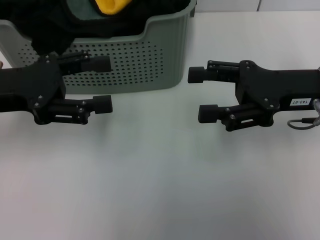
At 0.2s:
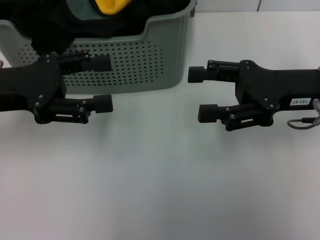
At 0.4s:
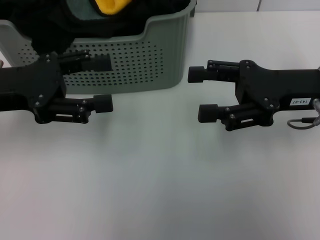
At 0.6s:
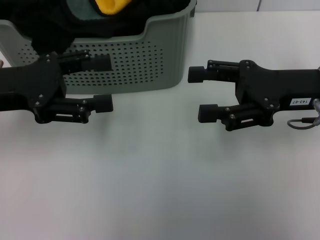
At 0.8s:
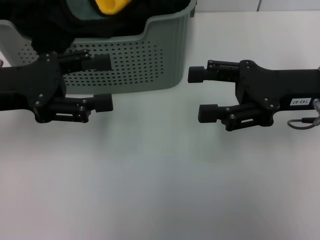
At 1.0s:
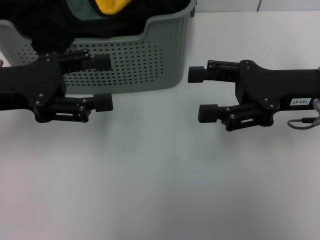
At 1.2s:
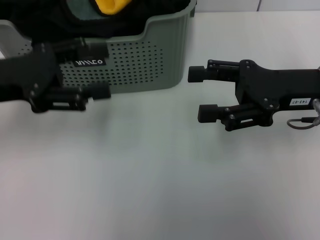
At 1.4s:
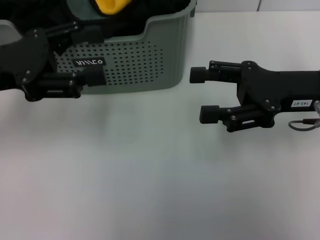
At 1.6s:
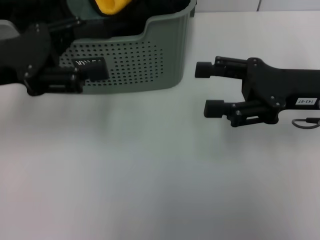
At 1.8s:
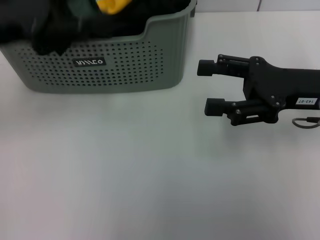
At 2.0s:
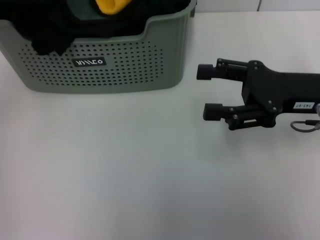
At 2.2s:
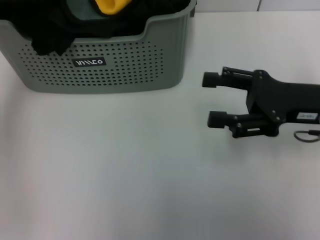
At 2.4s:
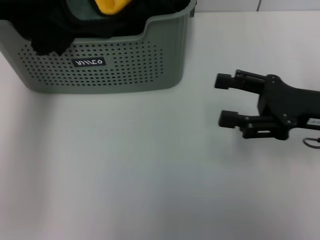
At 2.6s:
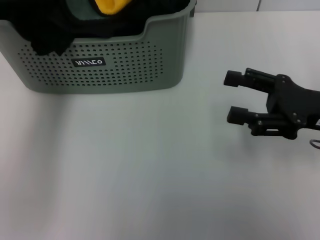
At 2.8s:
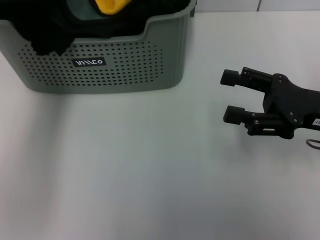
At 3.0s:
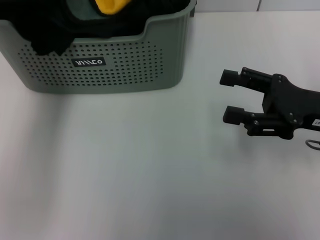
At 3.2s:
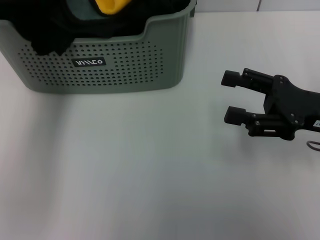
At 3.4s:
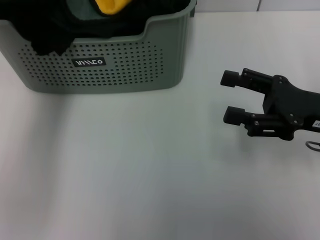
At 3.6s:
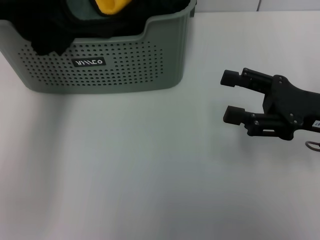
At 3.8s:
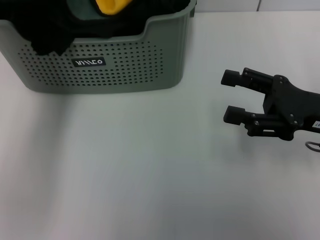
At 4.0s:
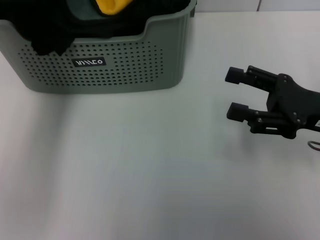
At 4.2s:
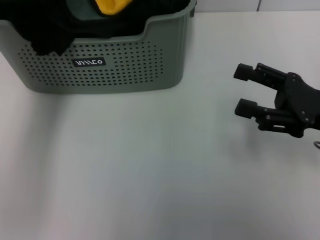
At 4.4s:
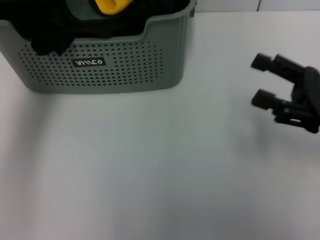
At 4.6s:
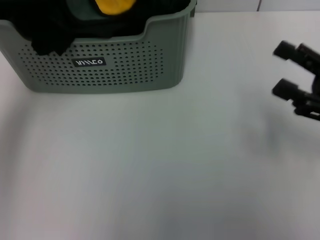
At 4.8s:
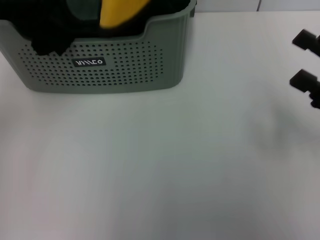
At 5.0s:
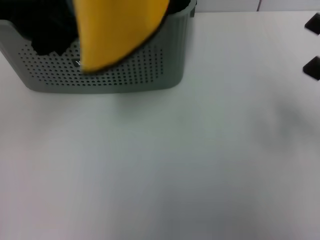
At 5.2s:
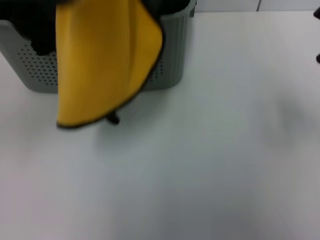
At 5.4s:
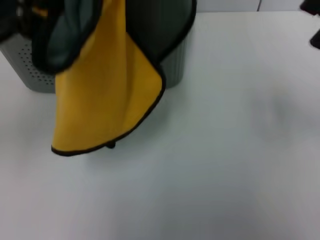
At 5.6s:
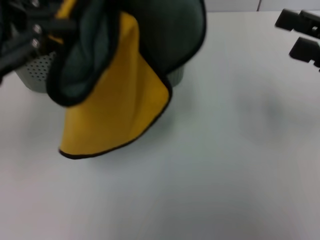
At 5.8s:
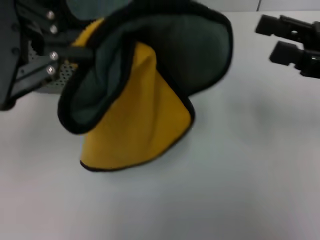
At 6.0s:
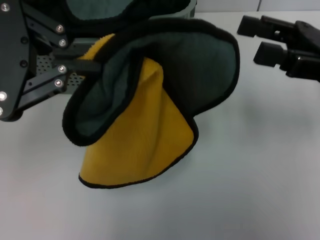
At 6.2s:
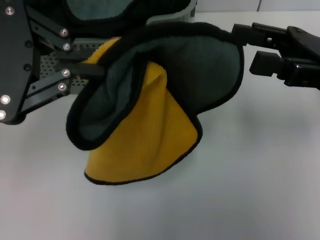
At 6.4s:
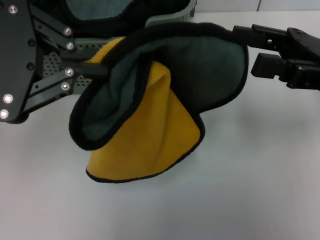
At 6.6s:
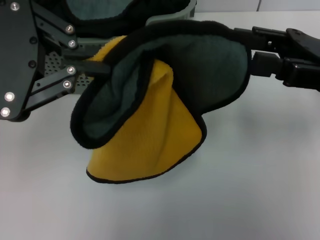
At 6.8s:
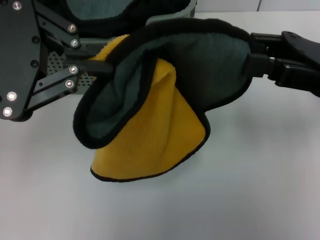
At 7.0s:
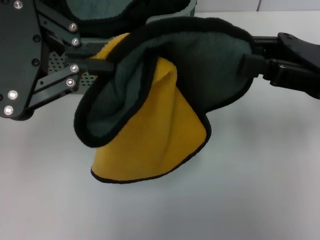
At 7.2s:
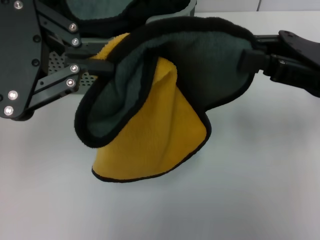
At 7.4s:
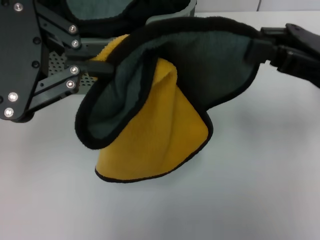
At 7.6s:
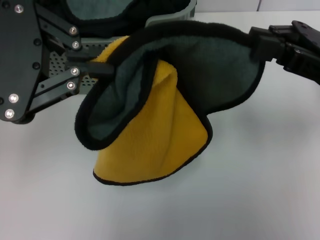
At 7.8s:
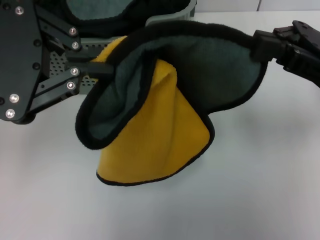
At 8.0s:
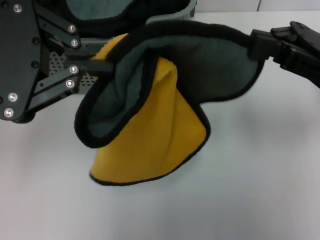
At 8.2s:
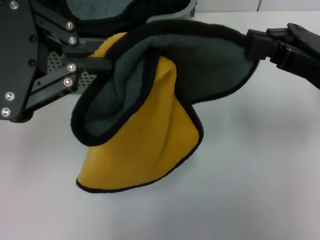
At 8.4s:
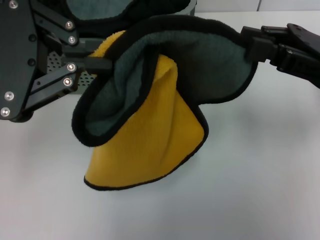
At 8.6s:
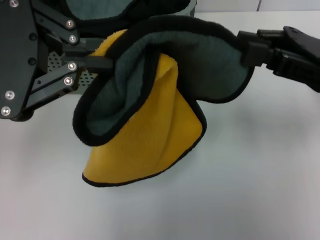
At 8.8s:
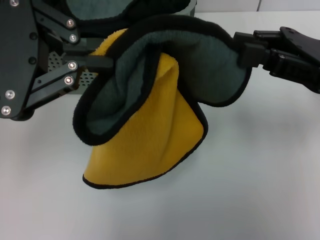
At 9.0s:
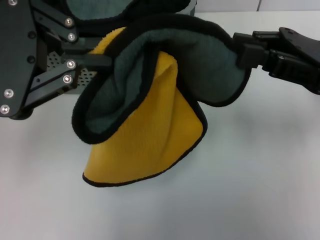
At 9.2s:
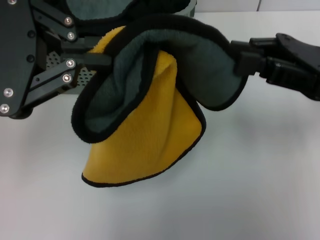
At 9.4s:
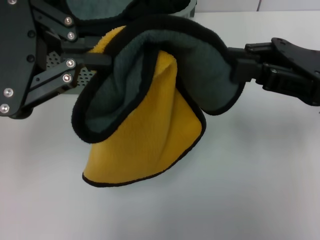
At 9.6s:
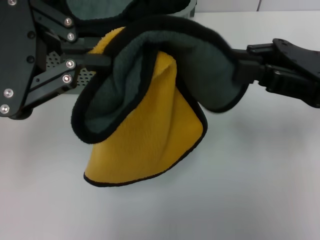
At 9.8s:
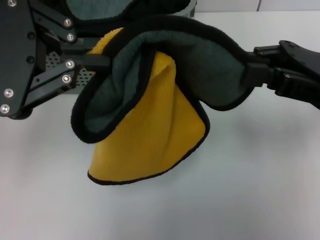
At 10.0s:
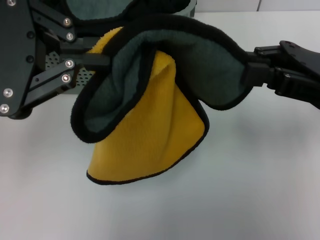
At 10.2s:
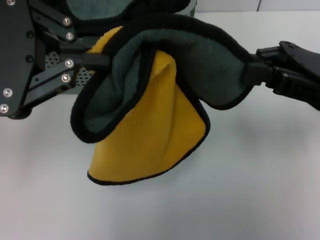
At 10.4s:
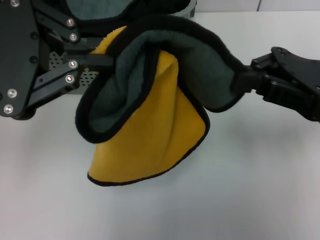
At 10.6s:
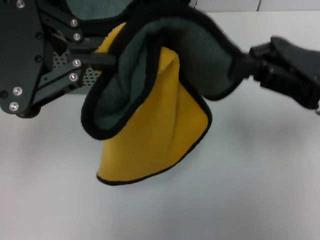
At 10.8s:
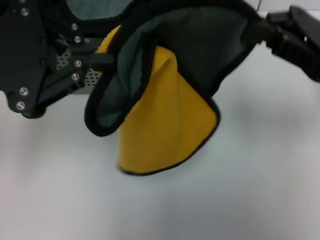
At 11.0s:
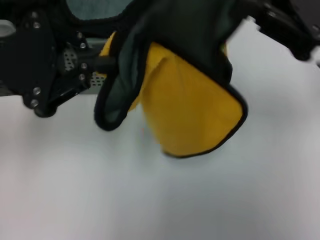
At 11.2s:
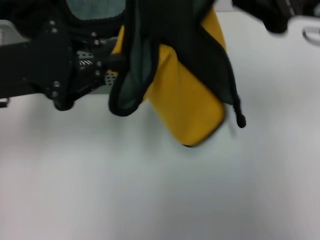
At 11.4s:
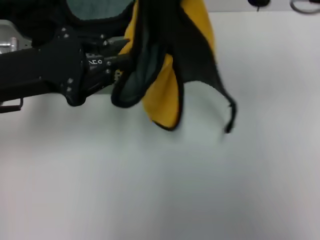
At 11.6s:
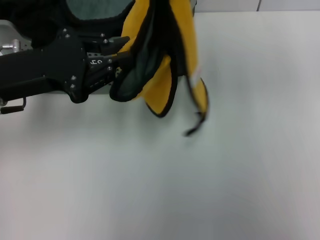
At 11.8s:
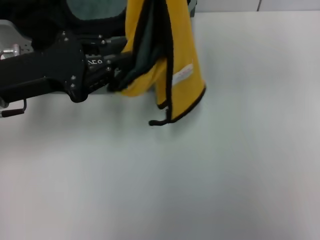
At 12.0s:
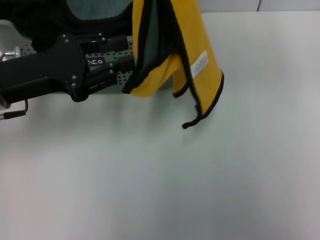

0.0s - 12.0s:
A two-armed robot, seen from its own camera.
Task of the whole recording: pick up the towel from the storage box and lay it flat on the table.
Step, 1.2s - 5.8s: Pick up a towel with the left gripper.
Step, 6.2s - 10.2s: Spread the towel flat with the left gripper.
0.0s - 1.6s: There are only small adjustments of the grippers.
1.6s - 3.0s: The right gripper ends up approximately 5 cm from where it was. The left gripper travels forward, to the right and upward by approximately 20 cm.
3.0s - 4.4s: The left gripper closes.
4.4s - 6.0s: The right gripper goes approximately 5 cm upward, while the left gripper goes roughly 20 cm backward and to the left.
6.0s - 7.6s: The right gripper closes up.
7.6s - 9.0s: Neither gripper changes place.
9.0s - 10.4s: The two grippers keep their place.
10.4s - 12.0s: The left gripper goes approximately 15 cm downward and forward. The right gripper shifts some 15 cm upward.

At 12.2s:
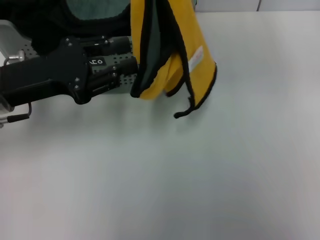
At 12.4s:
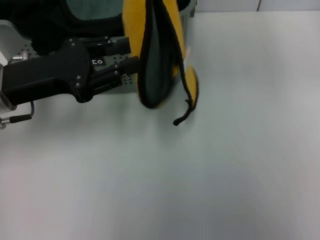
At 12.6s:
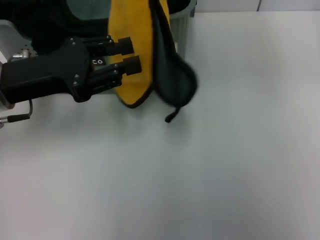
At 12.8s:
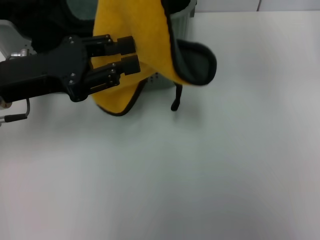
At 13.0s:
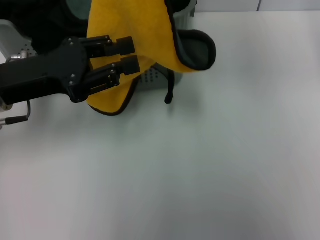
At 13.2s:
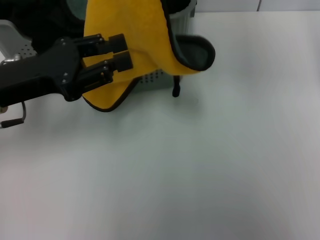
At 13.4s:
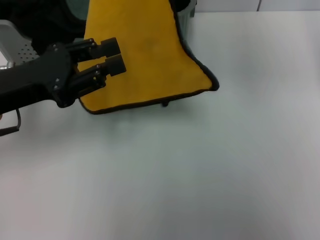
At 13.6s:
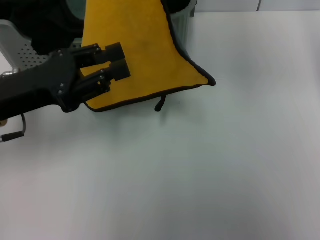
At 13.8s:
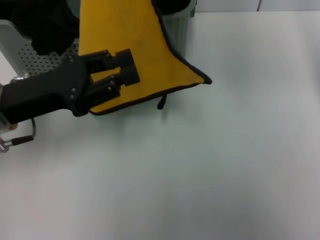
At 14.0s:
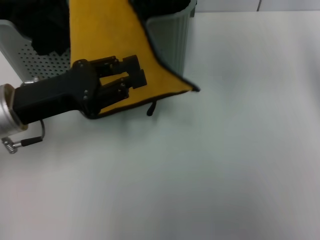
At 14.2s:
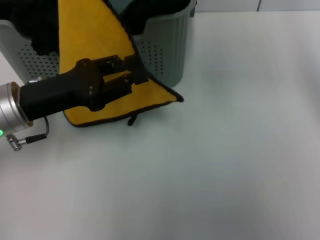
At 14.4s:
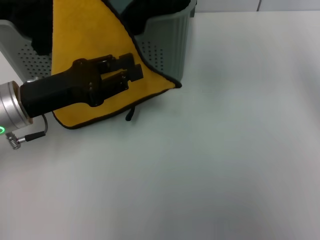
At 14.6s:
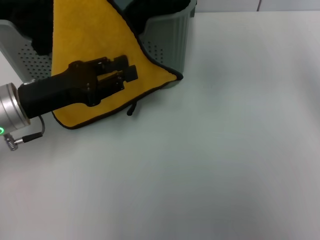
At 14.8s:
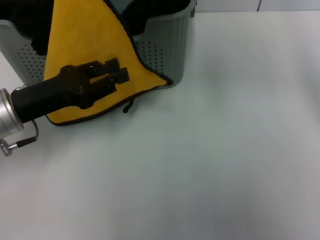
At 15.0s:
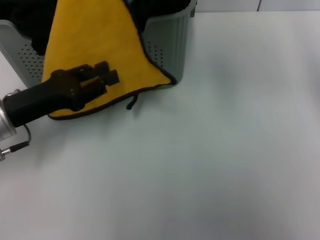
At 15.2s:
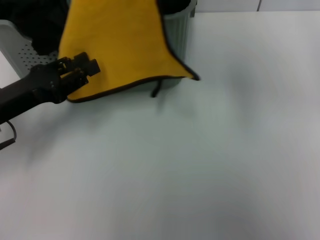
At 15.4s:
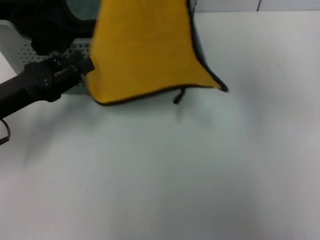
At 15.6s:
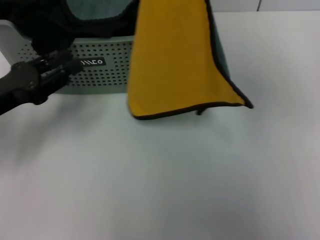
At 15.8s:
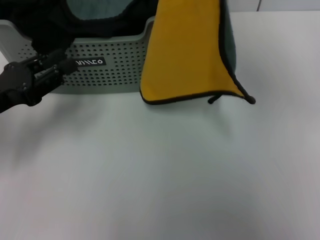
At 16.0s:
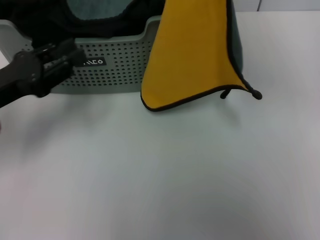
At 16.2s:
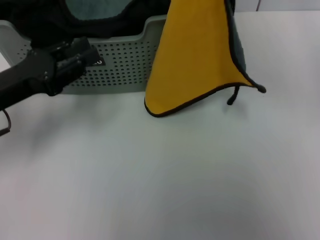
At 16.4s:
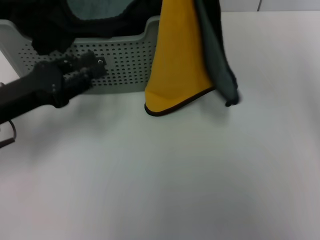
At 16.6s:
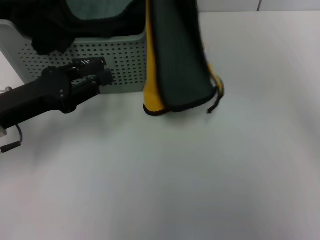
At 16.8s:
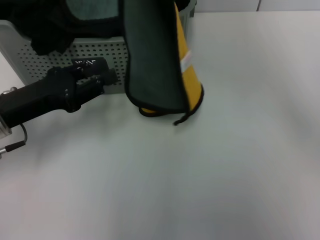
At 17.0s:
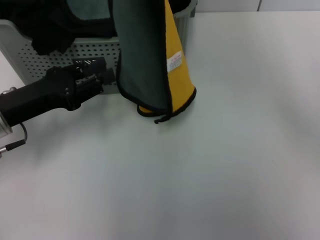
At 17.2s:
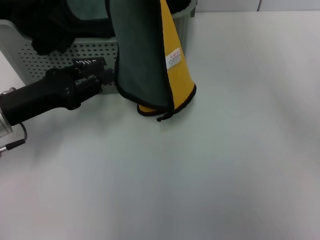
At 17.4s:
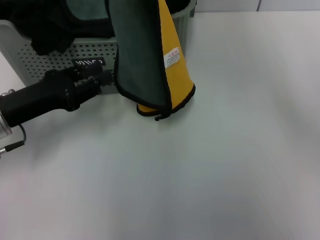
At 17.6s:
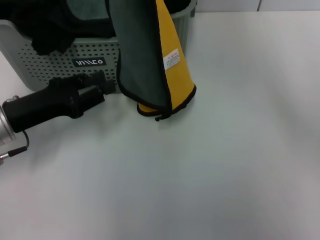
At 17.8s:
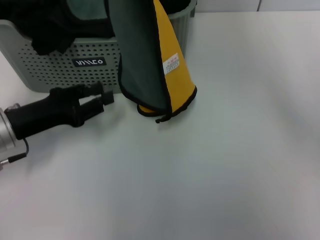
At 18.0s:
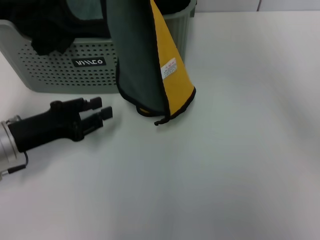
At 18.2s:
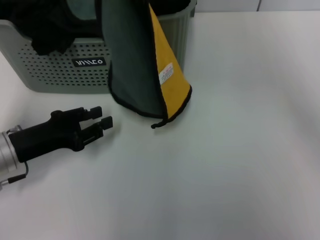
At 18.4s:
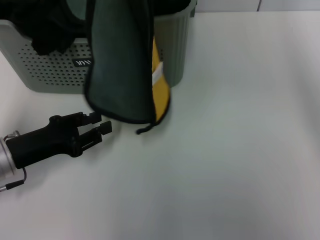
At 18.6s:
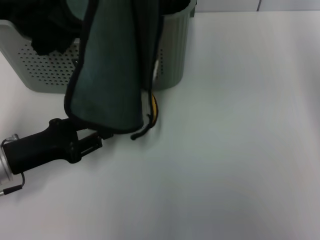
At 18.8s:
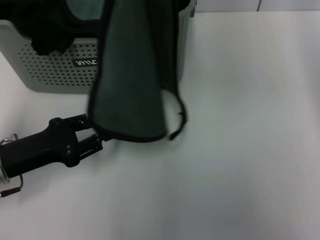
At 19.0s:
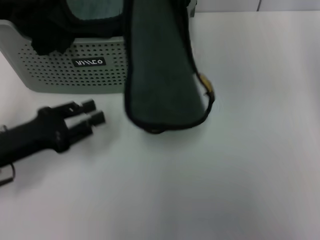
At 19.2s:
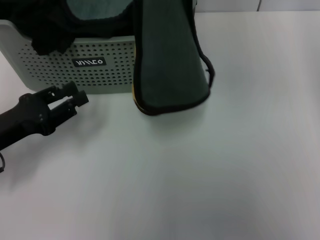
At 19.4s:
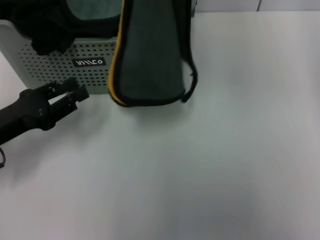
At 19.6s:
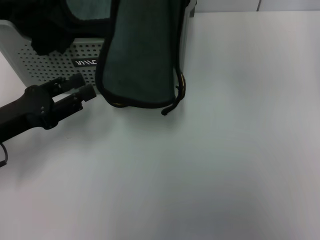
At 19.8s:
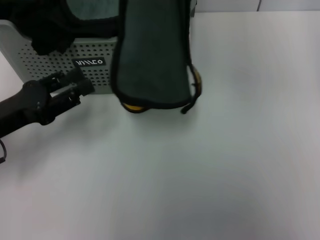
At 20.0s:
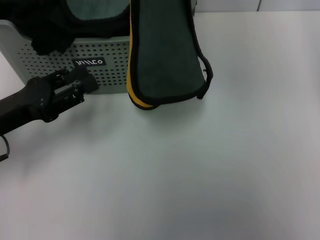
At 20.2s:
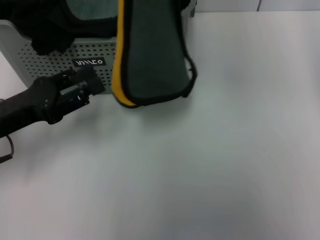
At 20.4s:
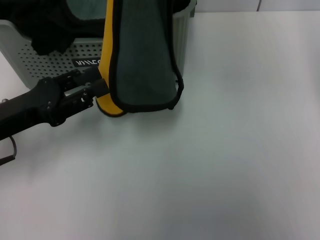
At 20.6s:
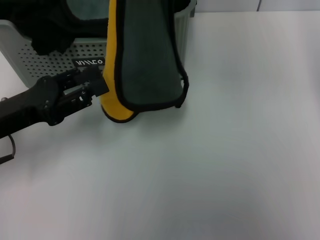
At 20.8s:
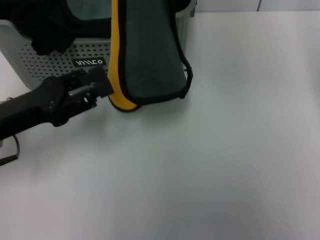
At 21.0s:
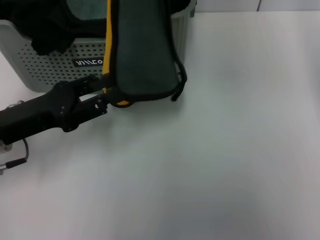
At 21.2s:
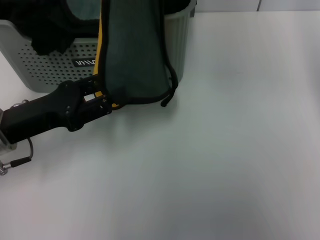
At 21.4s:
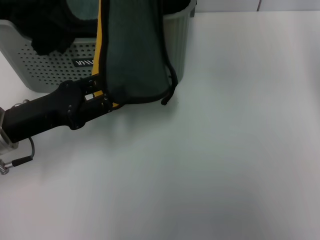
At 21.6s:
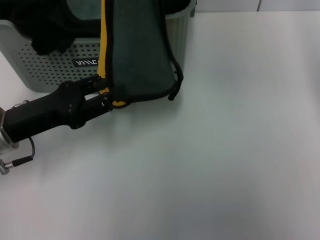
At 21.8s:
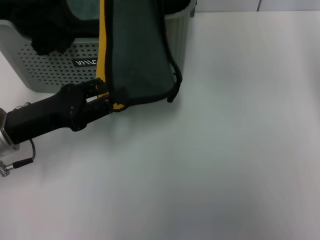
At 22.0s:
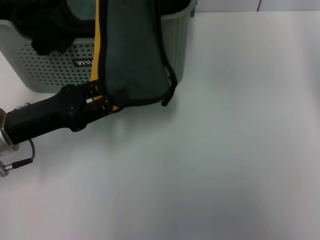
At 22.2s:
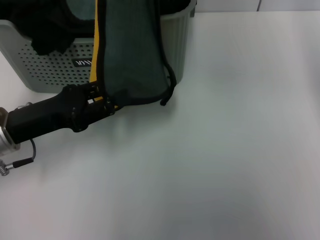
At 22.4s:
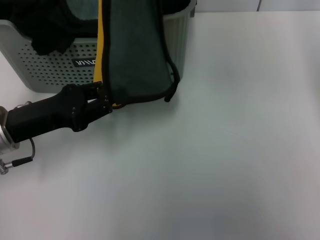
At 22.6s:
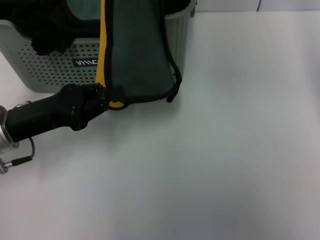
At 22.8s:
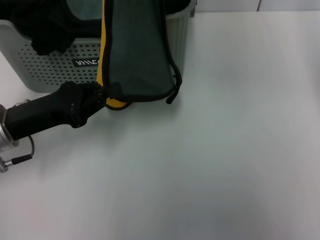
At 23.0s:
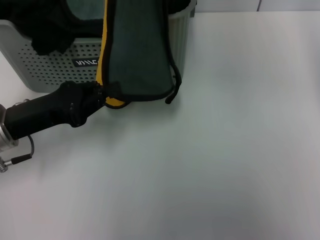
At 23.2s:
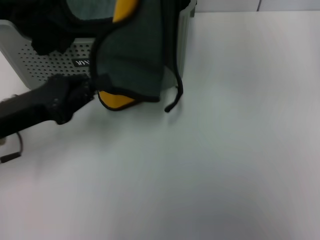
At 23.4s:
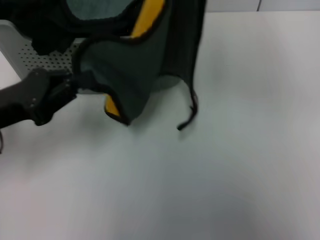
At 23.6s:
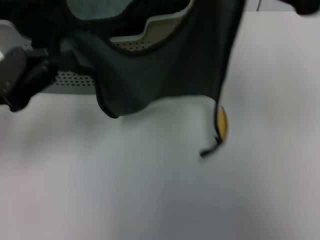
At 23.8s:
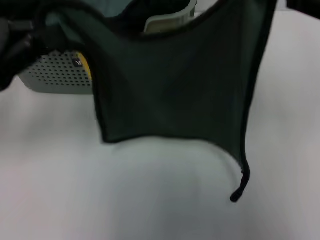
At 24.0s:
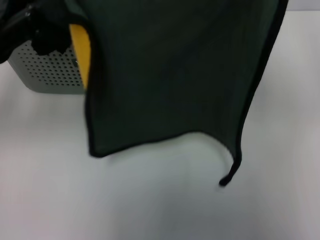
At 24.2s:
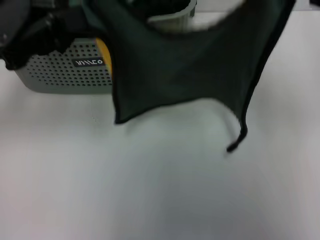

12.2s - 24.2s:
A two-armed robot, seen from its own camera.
Task of the whole recording: pick up the towel from the storage box and lay it flat on the table.
12.2s - 13.8s: The right gripper moves to the left, approximately 5 cm.
13.8s - 15.2s: The left gripper ends up about 5 cm from where it was.
15.2s - 16.6s: The right gripper is displaced to the left and upward by some 10 cm.
16.6s - 18.2s: The left gripper goes roughly 5 cm downward.
18.2s - 19.8s: The right gripper travels to the right by approximately 10 cm.
19.8s - 21.2s: The grippers stay close to where they were, moving slightly.
21.2s - 22.6s: Neither gripper changes place.
22.6s - 24.2s: The left gripper goes roughly 10 cm upward, and closes up, while the right gripper travels to the right and downward by about 20 cm.
